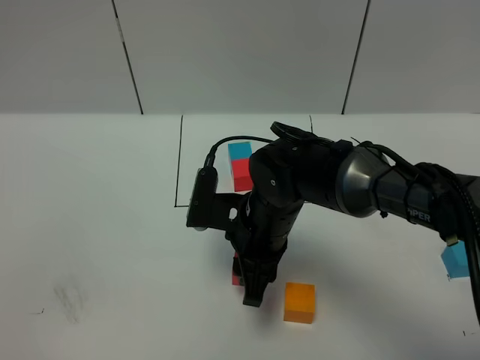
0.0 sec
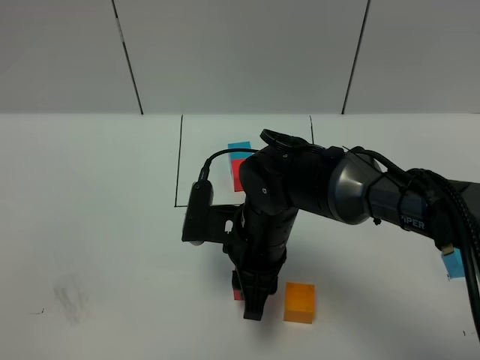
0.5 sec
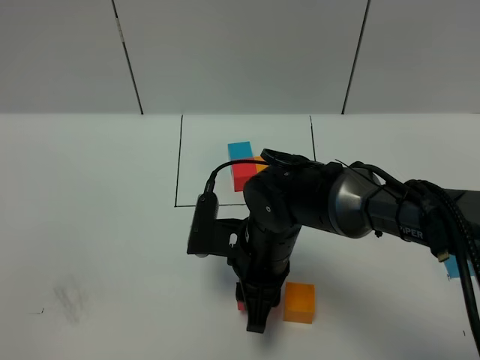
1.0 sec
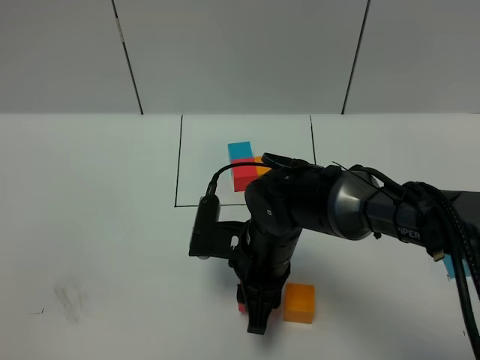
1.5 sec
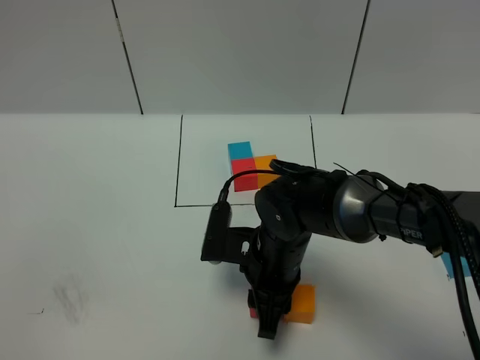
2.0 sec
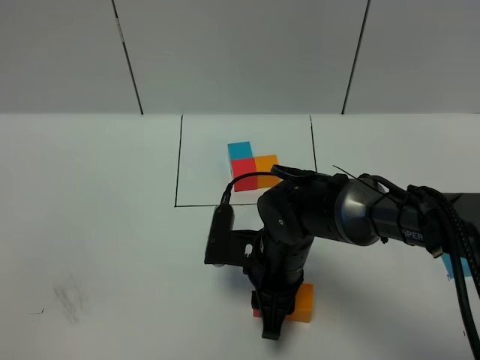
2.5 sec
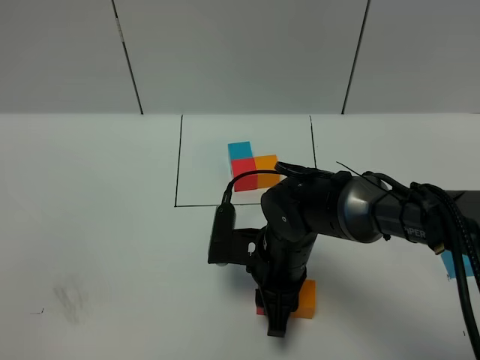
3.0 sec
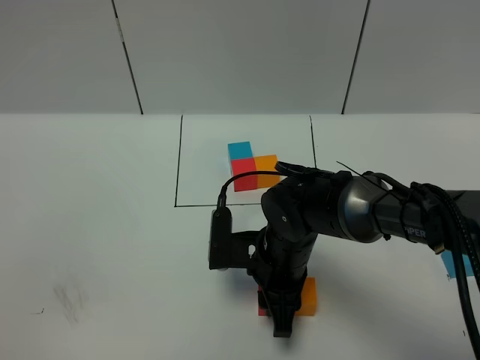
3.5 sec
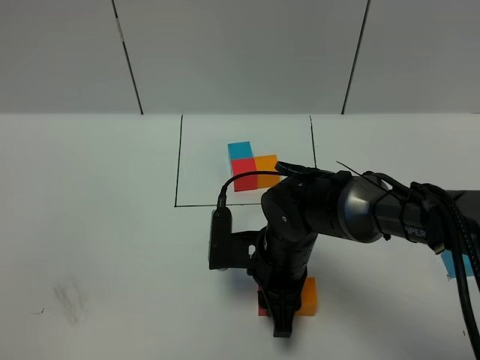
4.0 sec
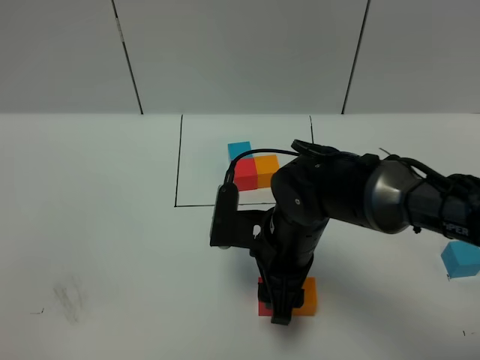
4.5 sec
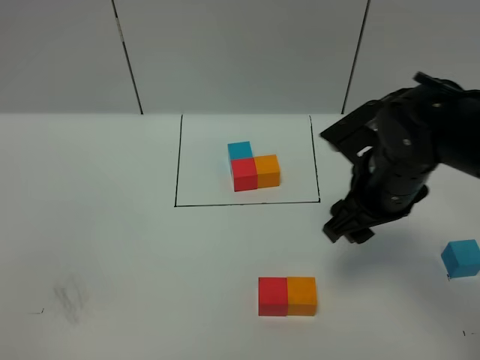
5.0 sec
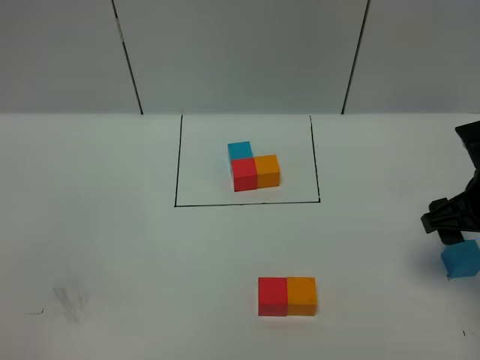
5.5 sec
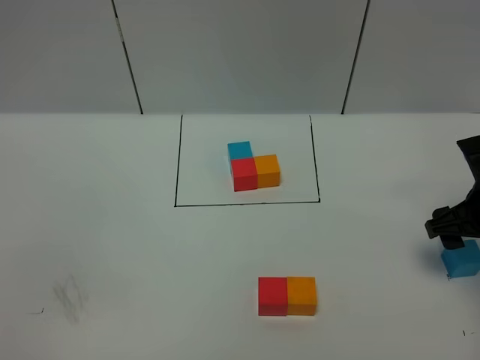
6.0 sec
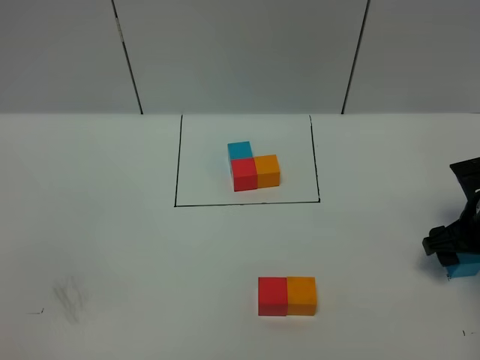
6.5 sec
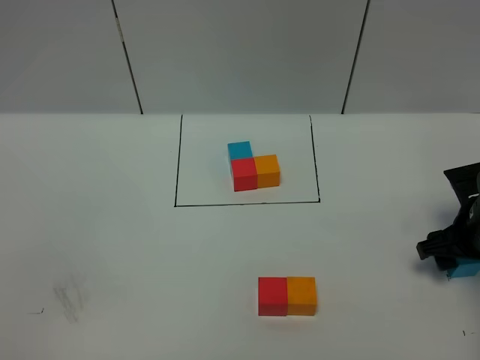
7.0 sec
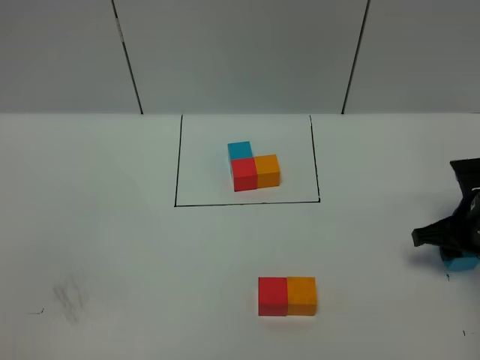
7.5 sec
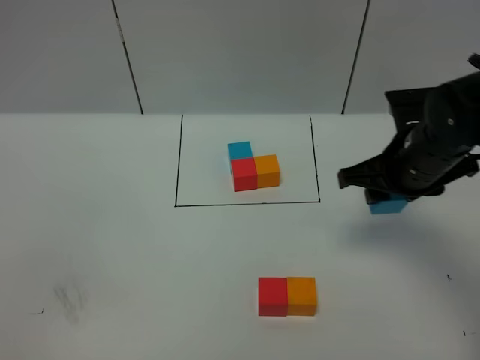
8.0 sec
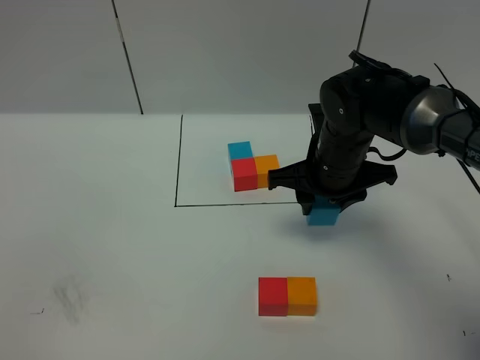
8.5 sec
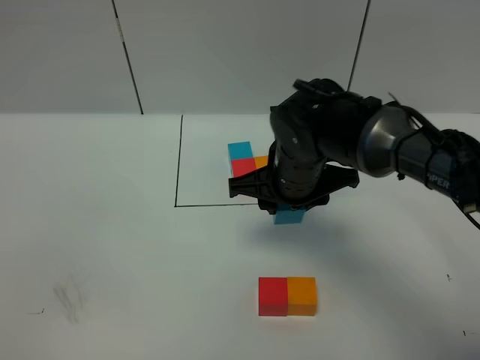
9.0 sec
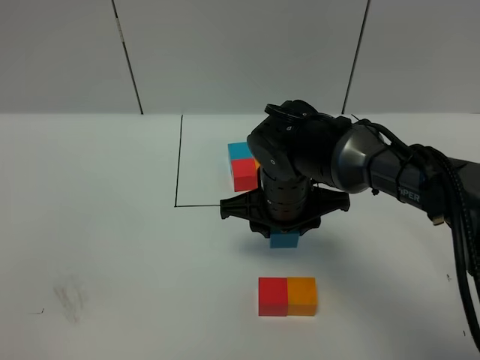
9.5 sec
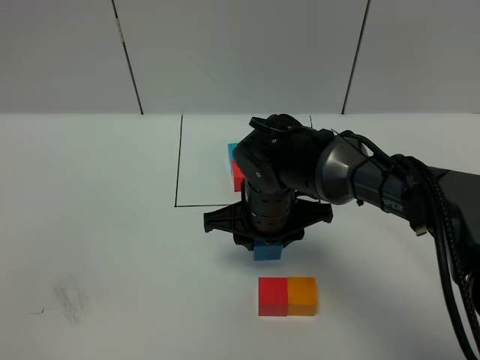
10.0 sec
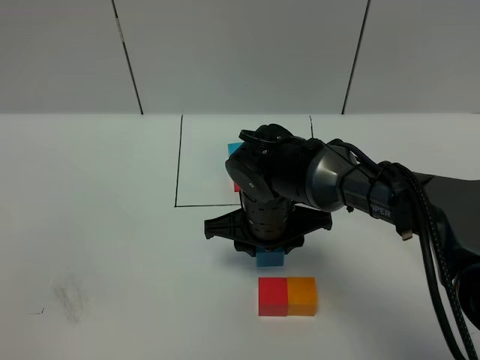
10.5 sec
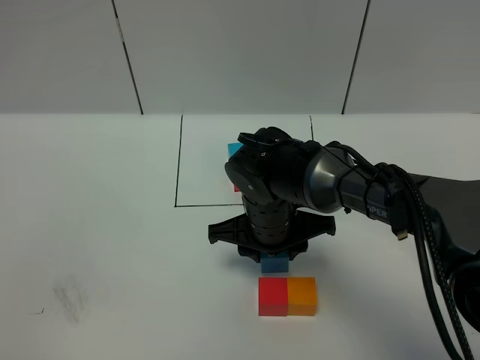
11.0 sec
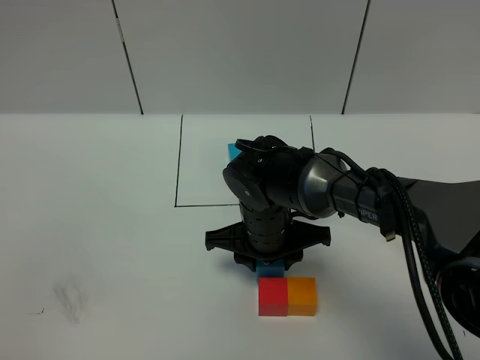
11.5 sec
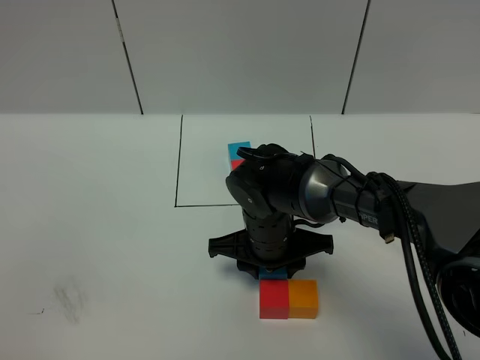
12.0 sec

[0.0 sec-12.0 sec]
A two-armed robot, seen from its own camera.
Task of the whole recording: According to the building block template in front, assemble the scattered blocks together.
0.0 sec to 4.0 sec: The grippers make only small movements.
4.0 sec to 6.0 sec: The right gripper moves to the right, about 25 cm, and opens.
6.0 sec to 8.0 sec: The right gripper heads to the left and upward, covering about 10 cm, and closes.
8.0 sec to 10.0 sec: The right gripper goes approximately 15 cm to the left.
10.0 sec to 12.0 sec: The grippers move only a little.

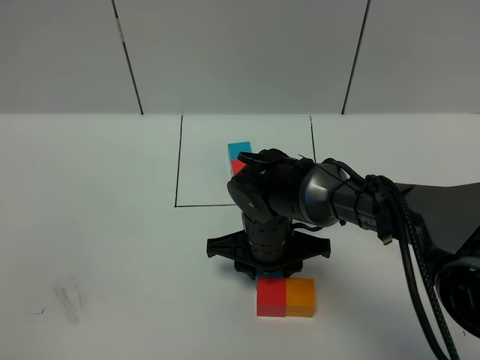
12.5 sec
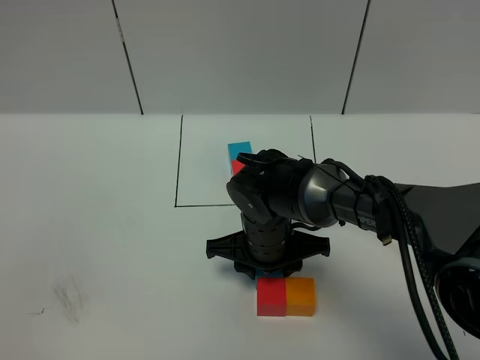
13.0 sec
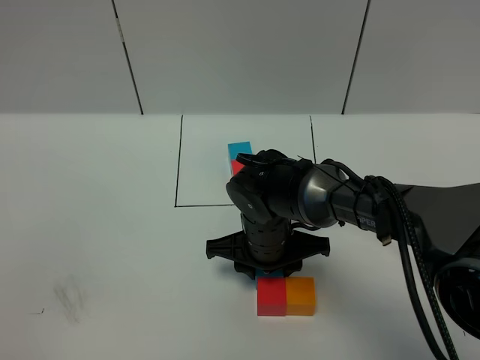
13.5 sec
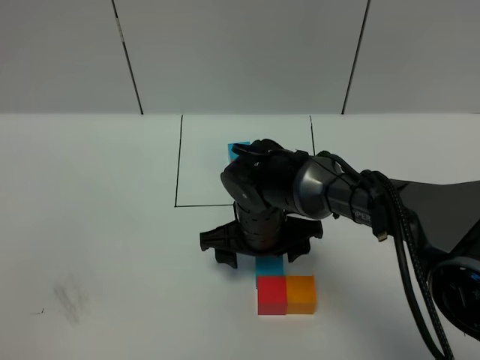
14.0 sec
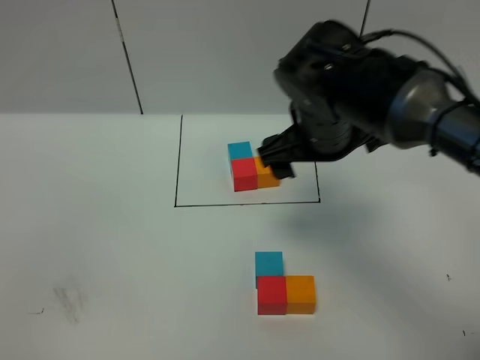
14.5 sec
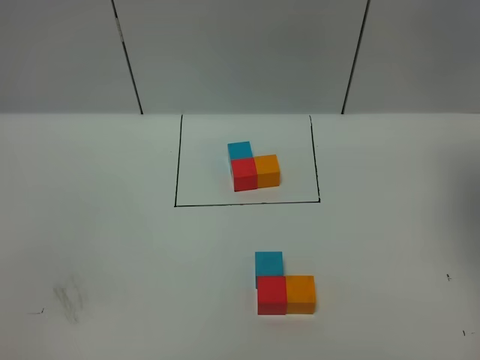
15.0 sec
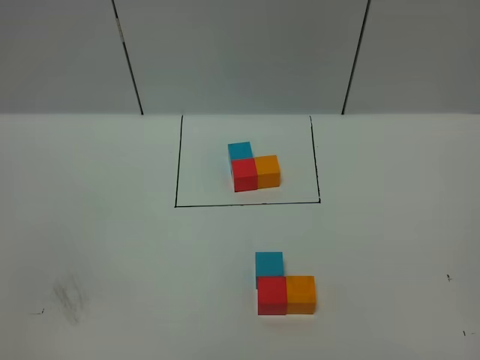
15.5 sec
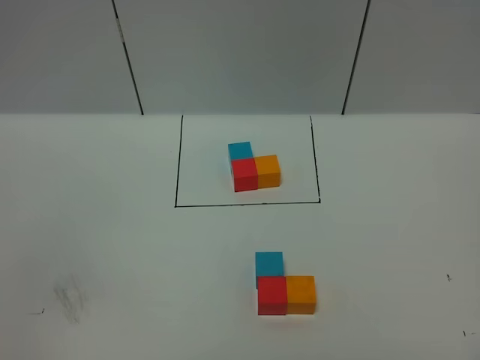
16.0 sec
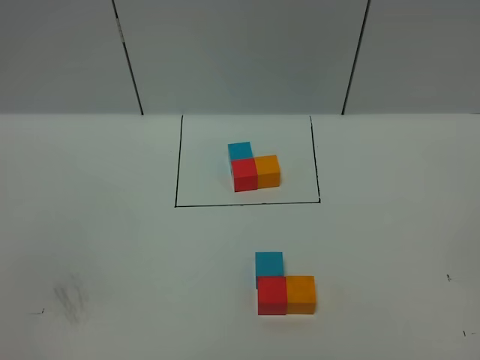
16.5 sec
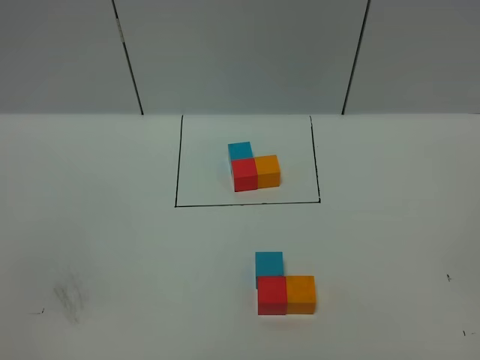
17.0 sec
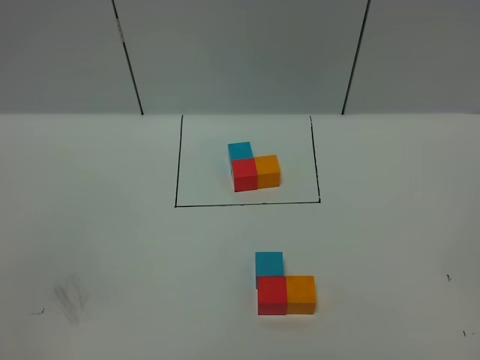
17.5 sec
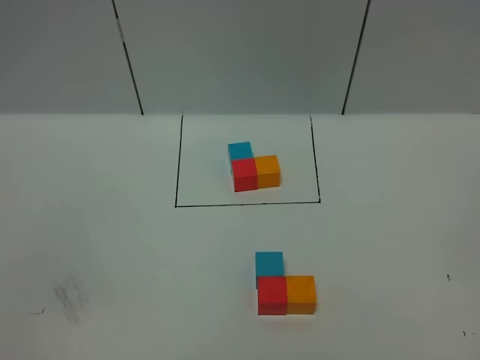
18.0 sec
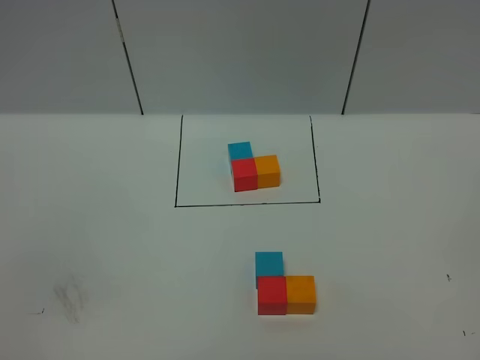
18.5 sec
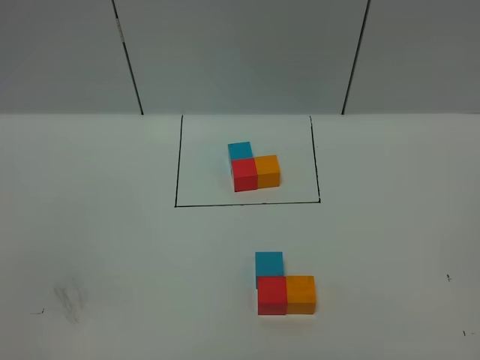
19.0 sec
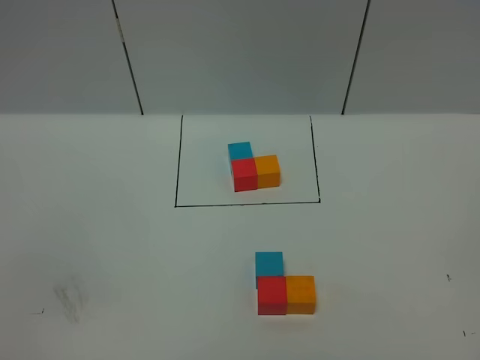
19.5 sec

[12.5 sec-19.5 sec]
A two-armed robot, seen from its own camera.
Task of the whole recording: According to the building block template in front, assemble the scattered blocks together.
12.5 sec to 14.5 sec: The right gripper travels upward and to the right by roughly 20 cm, and opens its fingers.
14.5 sec to 16.0 sec: The right gripper travels backward and to the right by roughly 40 cm.
